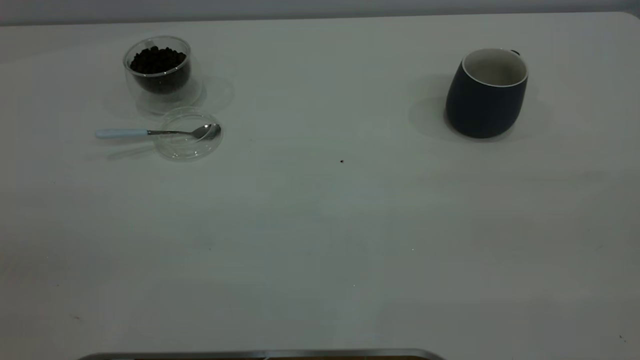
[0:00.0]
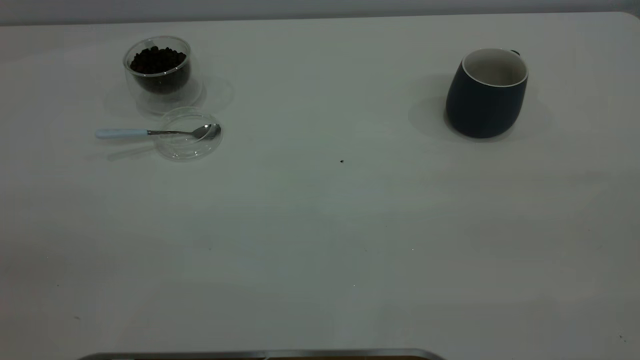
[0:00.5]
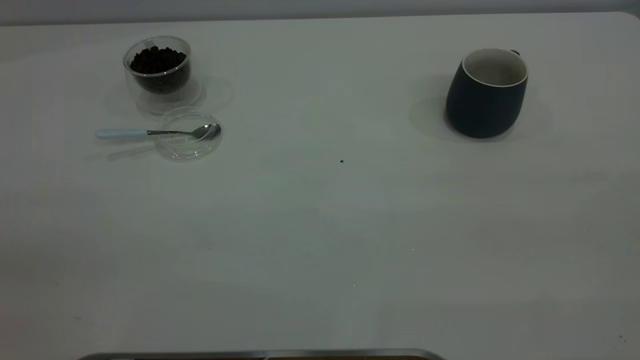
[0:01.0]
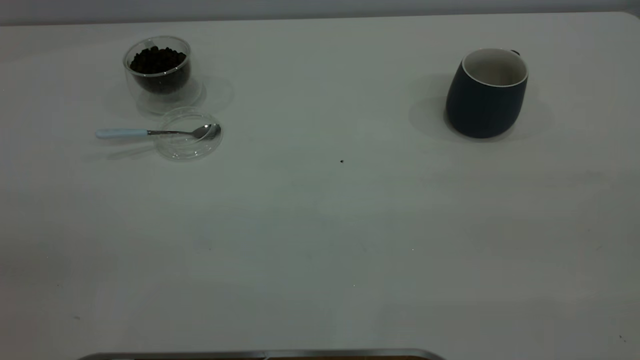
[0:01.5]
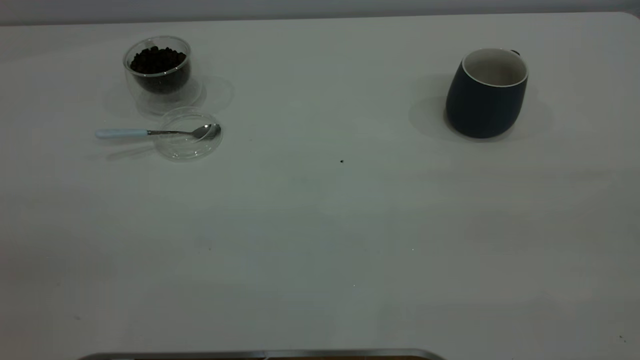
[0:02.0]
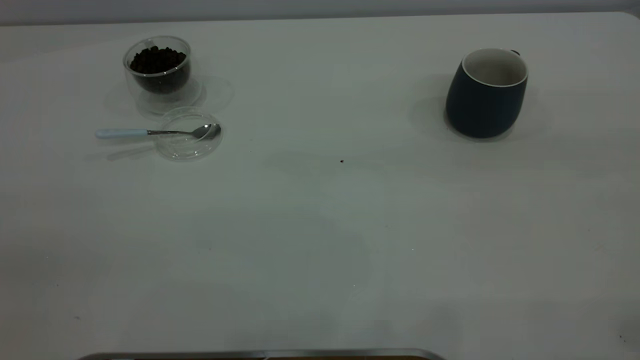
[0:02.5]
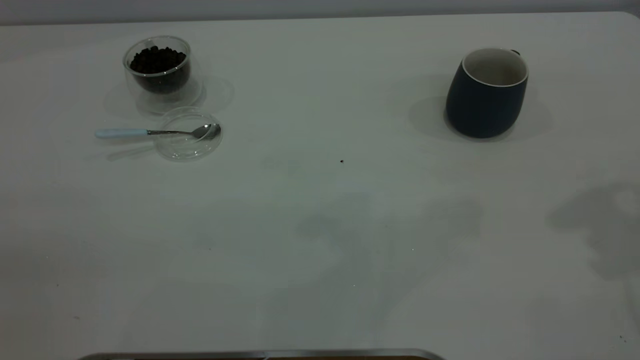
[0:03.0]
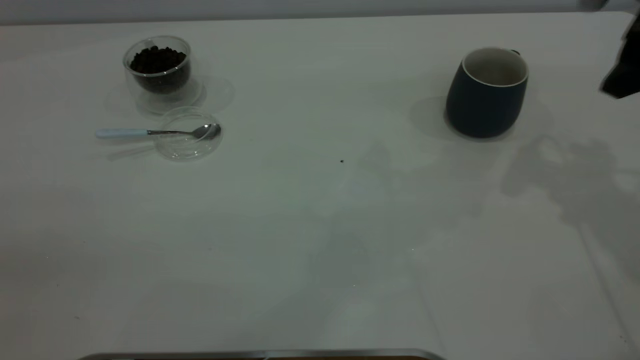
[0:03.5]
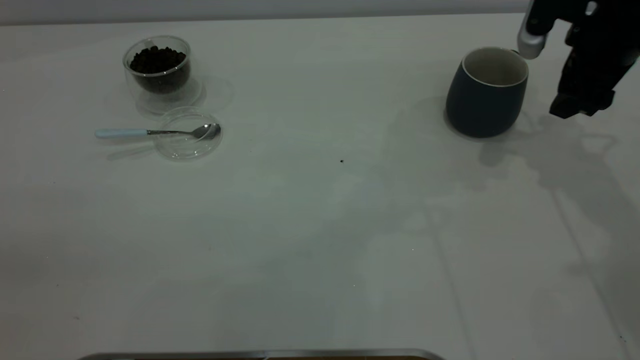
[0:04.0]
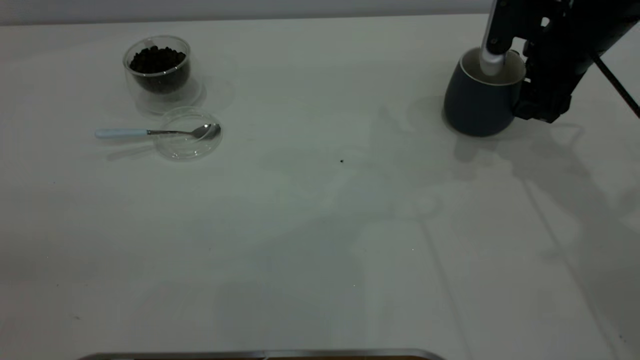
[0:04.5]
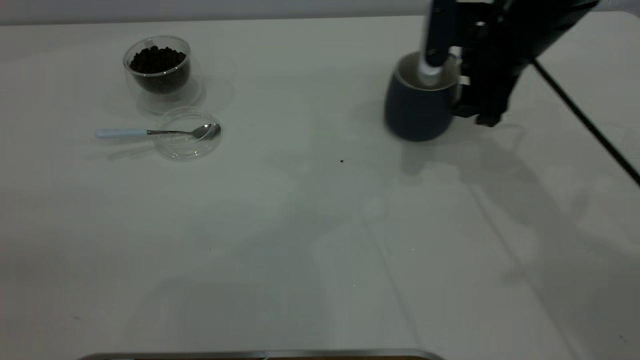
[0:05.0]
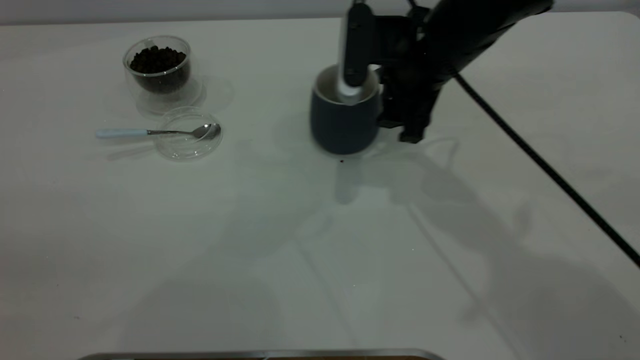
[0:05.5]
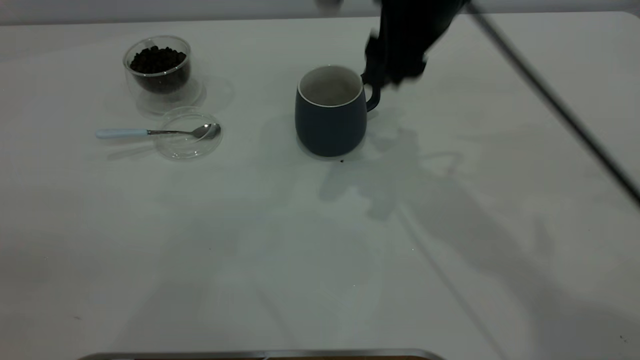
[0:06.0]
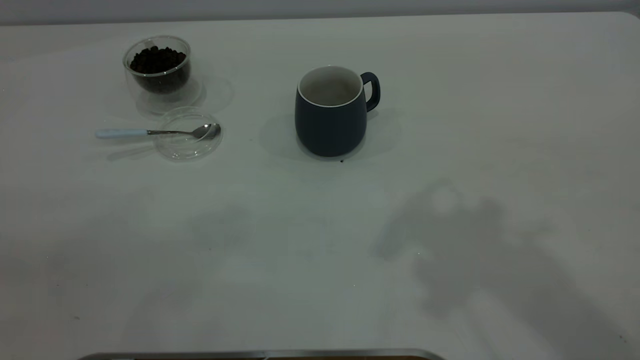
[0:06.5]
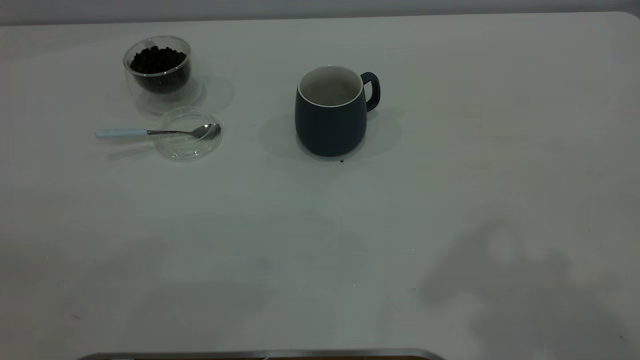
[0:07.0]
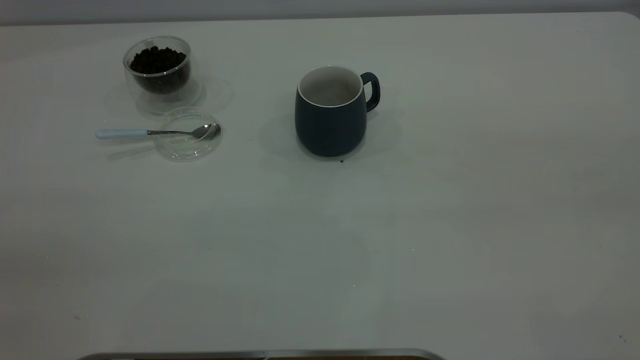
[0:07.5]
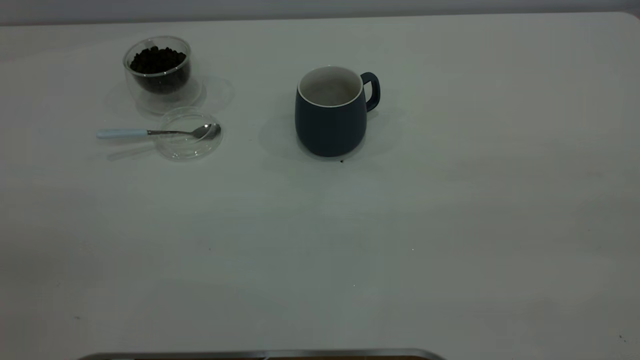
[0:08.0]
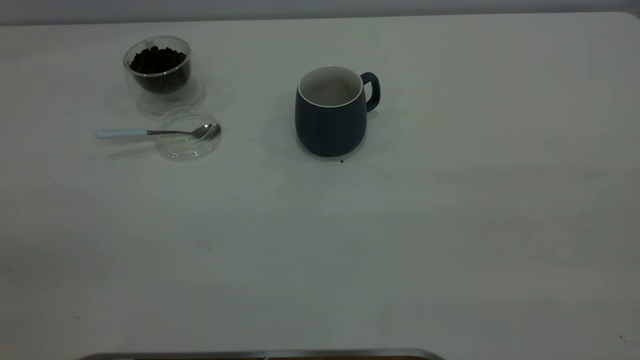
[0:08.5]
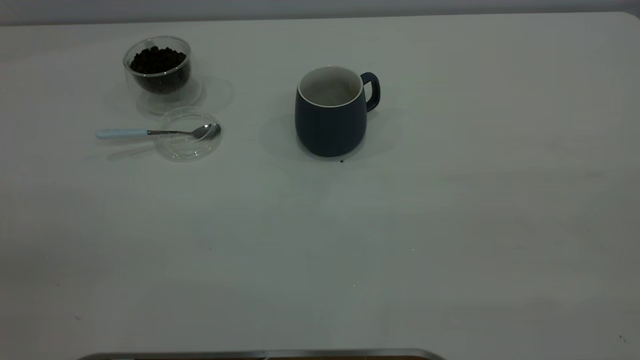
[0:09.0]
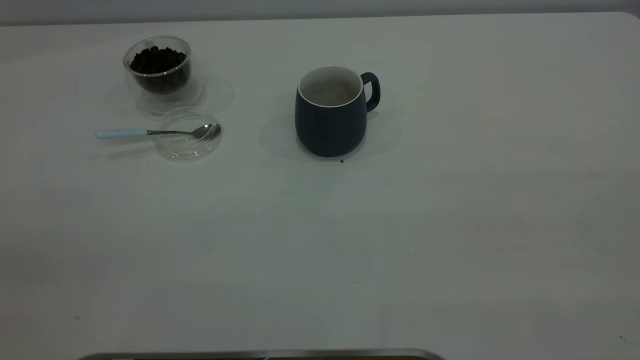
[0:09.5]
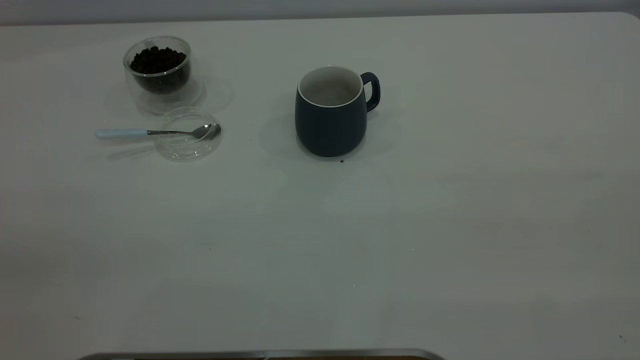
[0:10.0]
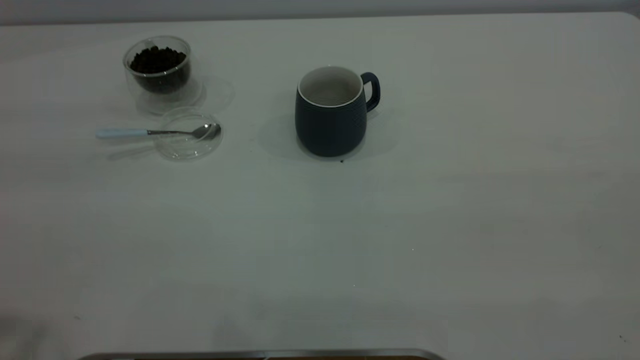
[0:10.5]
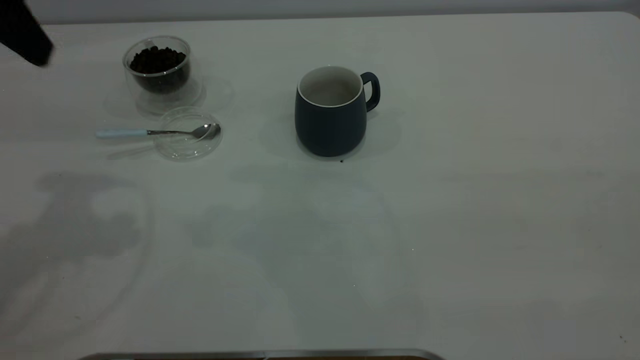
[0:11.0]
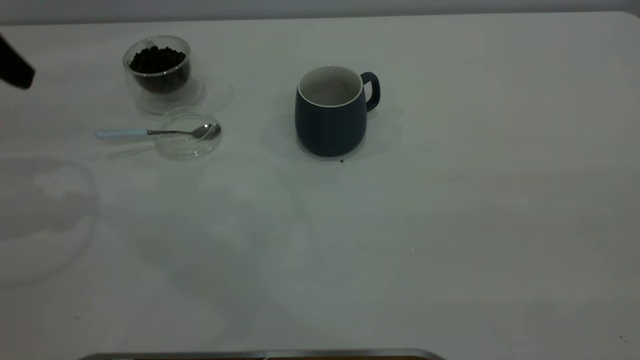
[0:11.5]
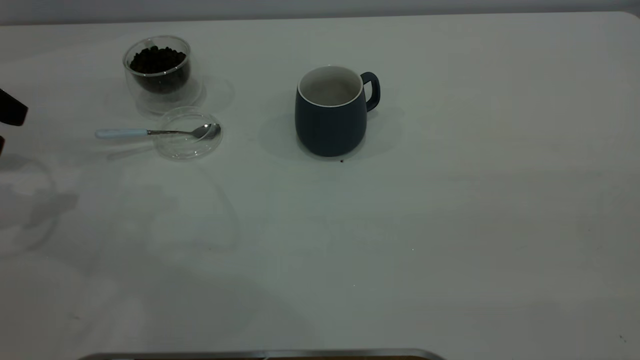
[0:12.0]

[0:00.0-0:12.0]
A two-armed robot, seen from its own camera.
Task of the whole recording: the right gripper place the grey cup in the center of the table, the left gripper take the blue spoon from the cup lid and scoop out the coffee beans from the coffee cup and put them into the grey cup, the left gripper put the spoon back into the cup lid.
Step, 0:00.0 to 0:05.5: Move the cup to the center of view.
0:00.0 to 0:02.0: Both grippers stay about where they are.
0:02.0 to 0:04.0: The right gripper travels forward and downward by roughly 50 cm, and opens up.
0:04.0 to 0:06.0: The right gripper goes some 20 cm to the left and upward, and closes.
0:06.0 to 0:08.0: The right gripper moves backward, to the right and upward, roughly 40 cm.
0:10.0 to 0:12.0: The left gripper goes roughly 40 cm forward and downward.

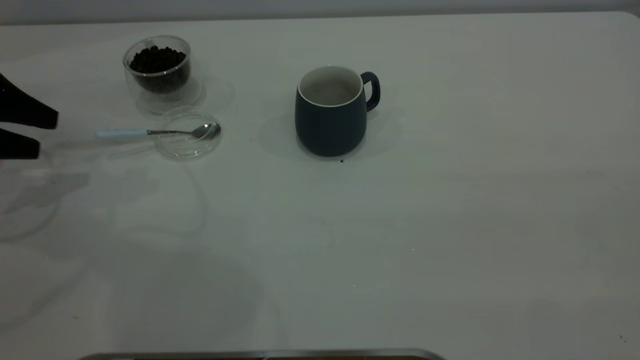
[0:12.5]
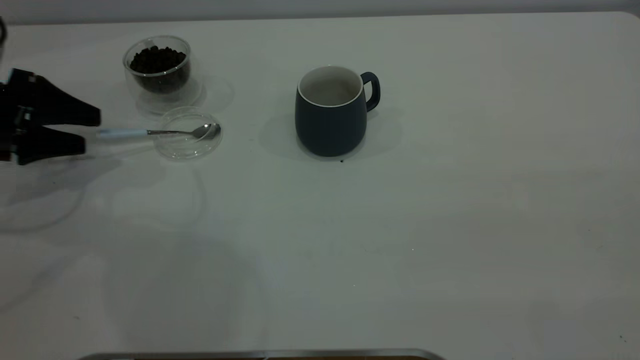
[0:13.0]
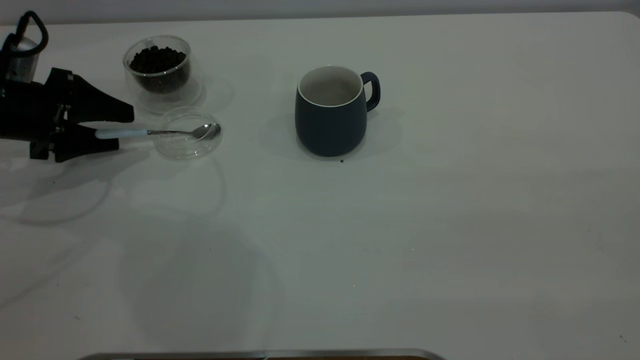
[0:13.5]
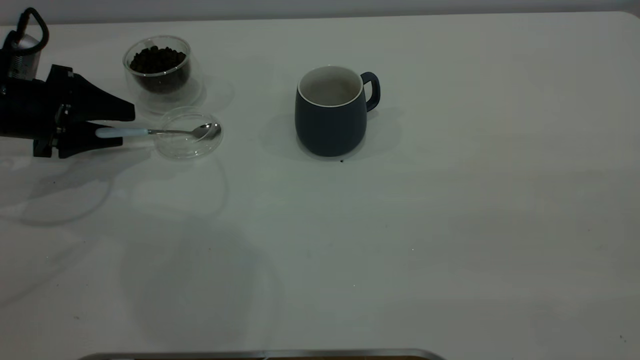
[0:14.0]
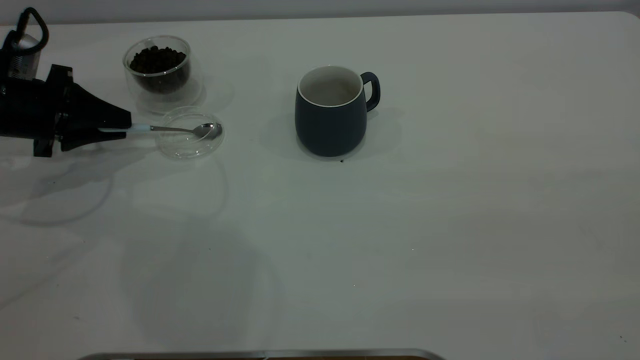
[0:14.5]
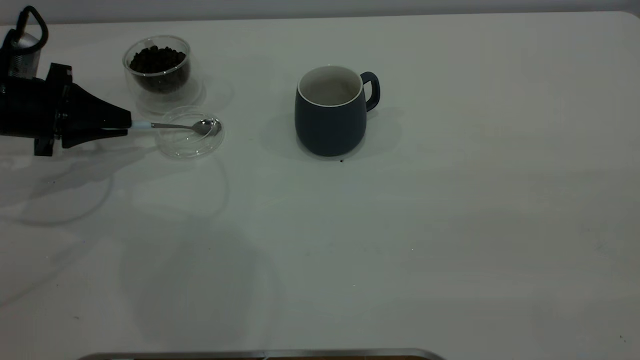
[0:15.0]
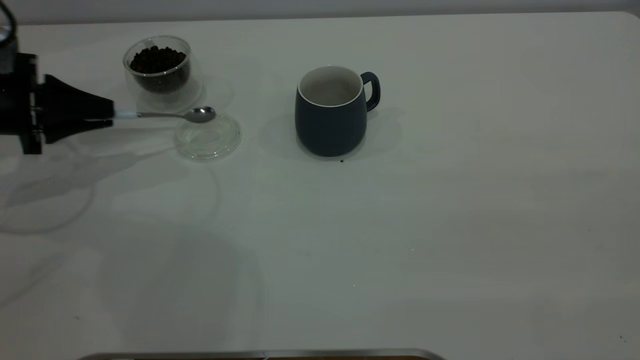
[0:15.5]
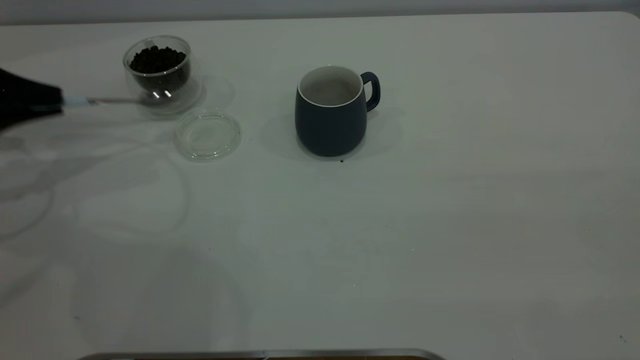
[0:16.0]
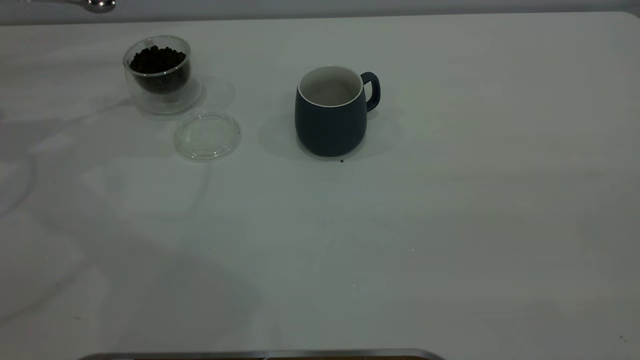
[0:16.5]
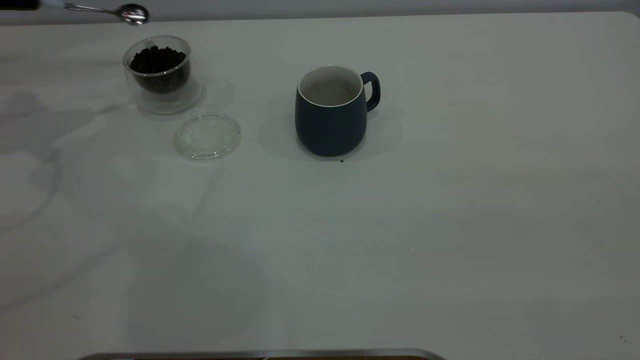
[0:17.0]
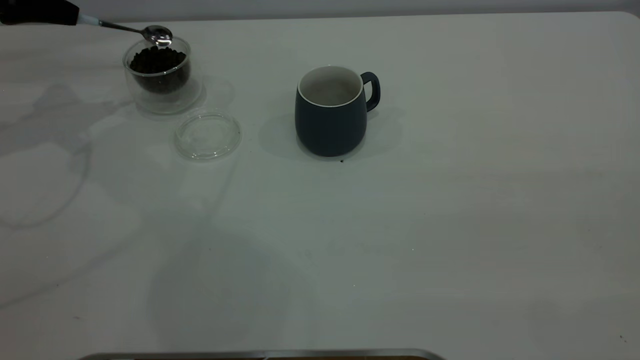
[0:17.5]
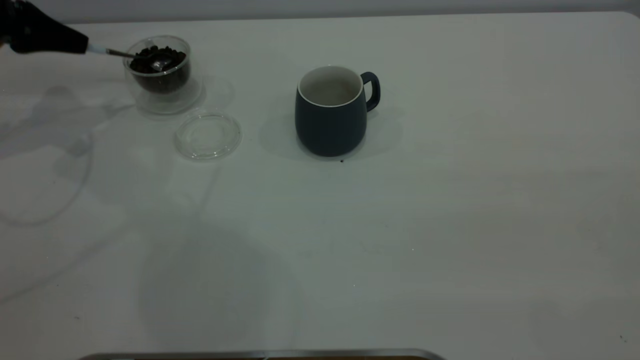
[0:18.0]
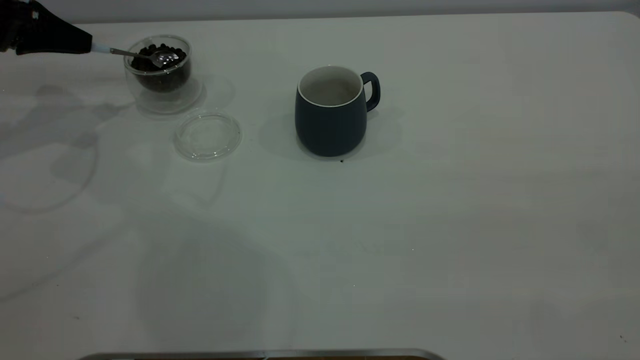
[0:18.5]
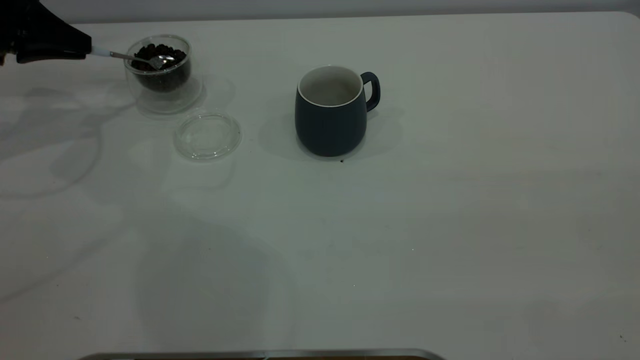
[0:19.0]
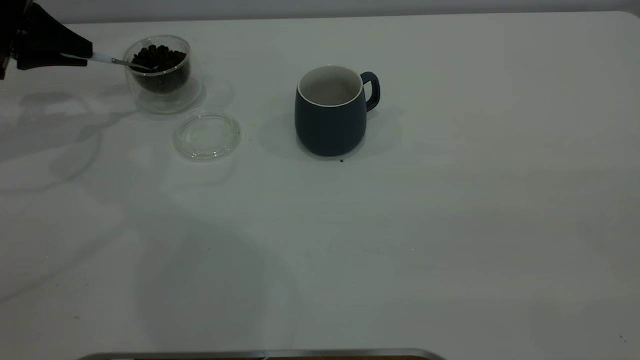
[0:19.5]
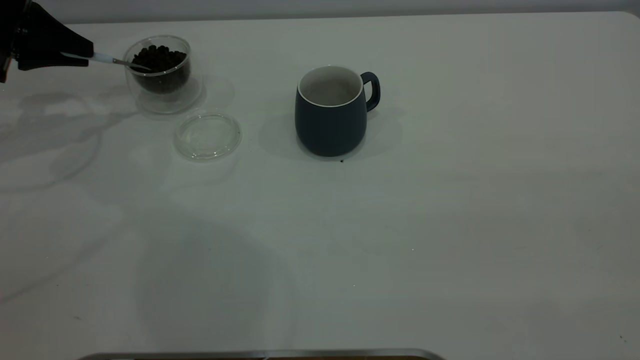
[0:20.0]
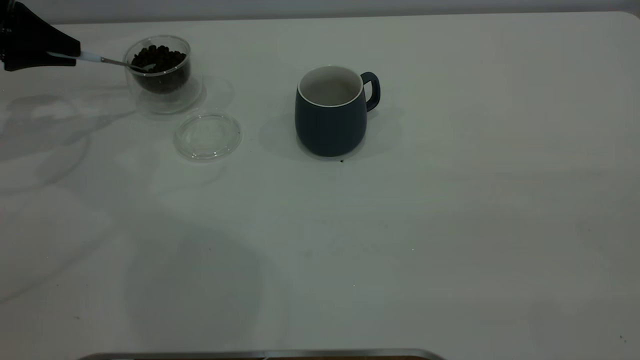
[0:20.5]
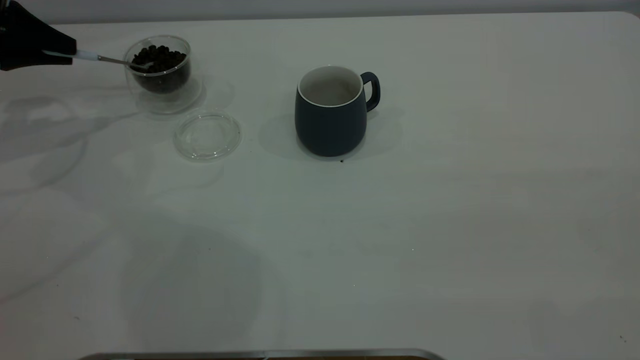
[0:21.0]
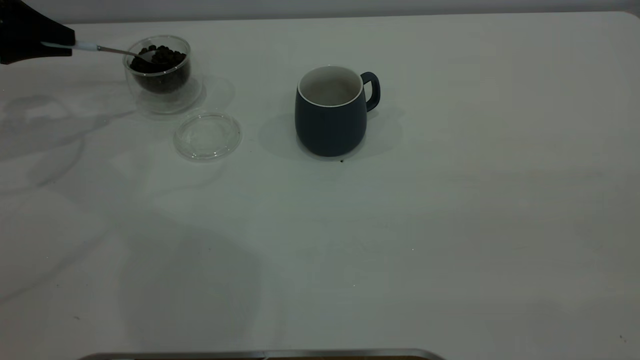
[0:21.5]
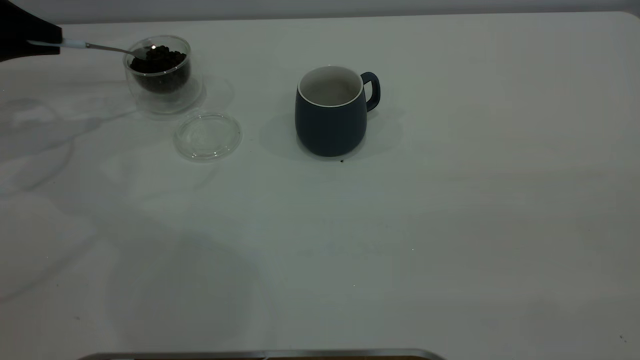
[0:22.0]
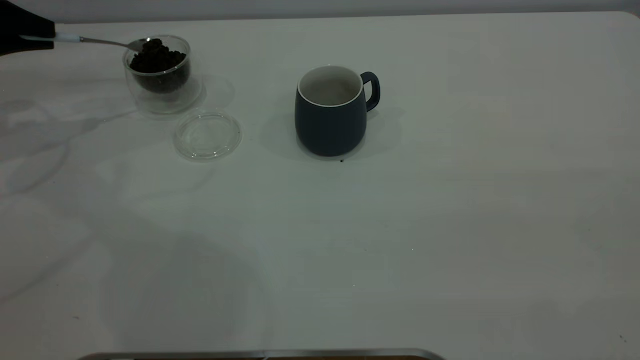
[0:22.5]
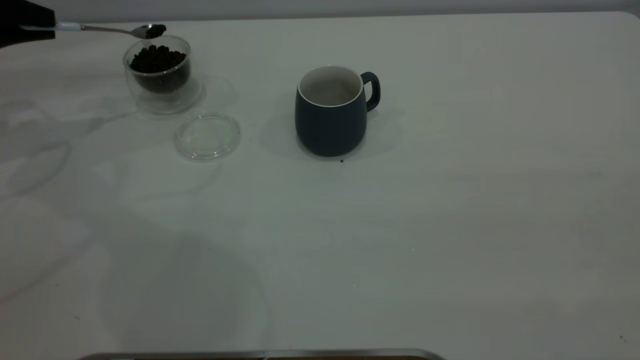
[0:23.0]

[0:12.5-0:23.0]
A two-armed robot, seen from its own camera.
Task of the whole recording: the right gripper place the grey cup in the center of the table, the left gripper take the blue spoon from the cup lid and scoop out the coffee beans from the coffee cup and put them into the grey cup, the left gripper put the spoon back into the cup lid.
Step, 0:12.5 to 0:16.0: Pick up the spoon.
0:12.5 to 0:14.5: The left gripper goes some 5 cm to the right, and closes its fingers.
0:14.5 to 0:16.5: The left gripper shifts some 15 cm upward and to the left.
0:16.5 to 0:19.0: The left gripper is displaced to the right and downward by approximately 10 cm.
0:19.0 to 0:21.0: The grippers move only a little.
0:21.0 to 0:23.0: There are only small adjustments of the grippers.
